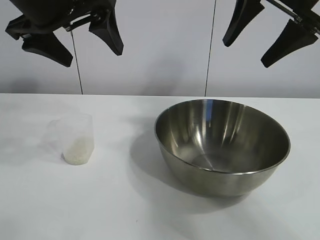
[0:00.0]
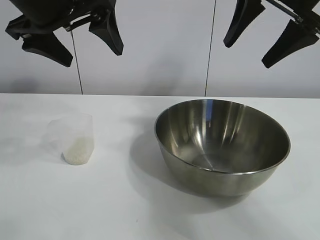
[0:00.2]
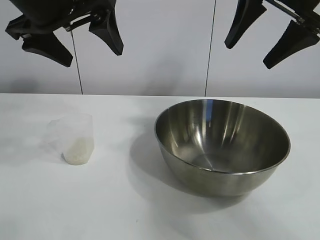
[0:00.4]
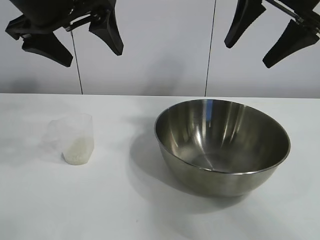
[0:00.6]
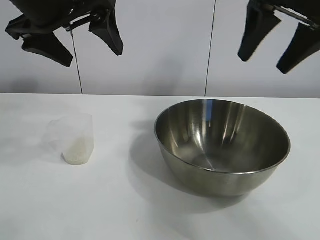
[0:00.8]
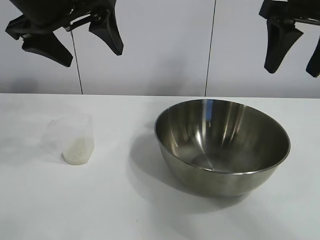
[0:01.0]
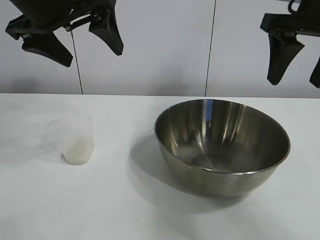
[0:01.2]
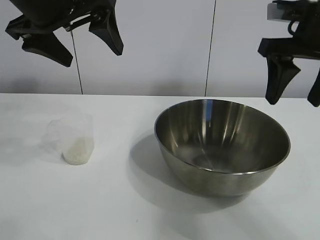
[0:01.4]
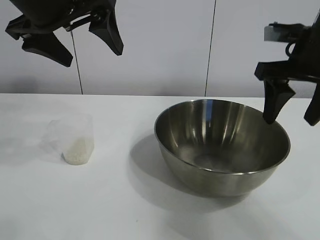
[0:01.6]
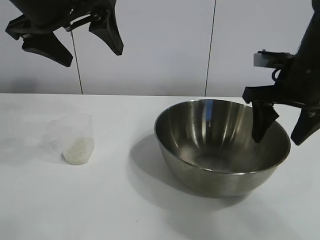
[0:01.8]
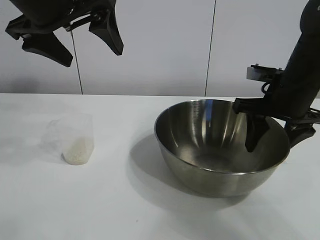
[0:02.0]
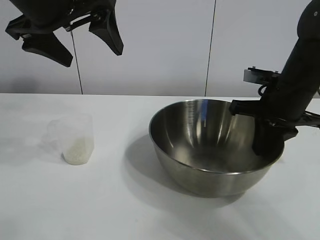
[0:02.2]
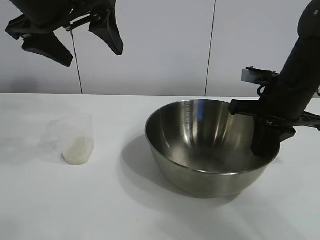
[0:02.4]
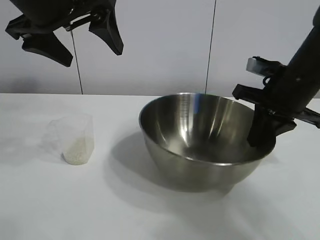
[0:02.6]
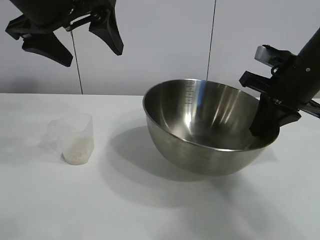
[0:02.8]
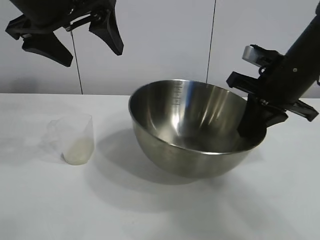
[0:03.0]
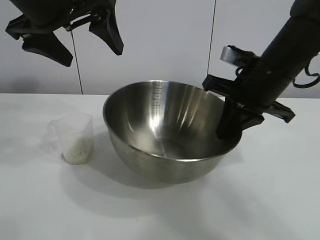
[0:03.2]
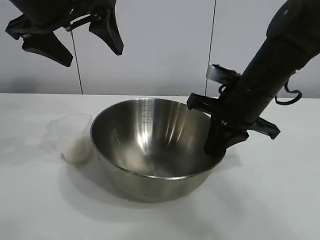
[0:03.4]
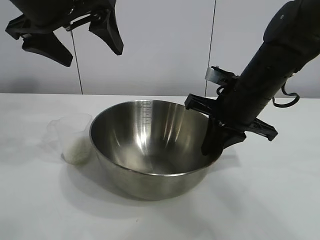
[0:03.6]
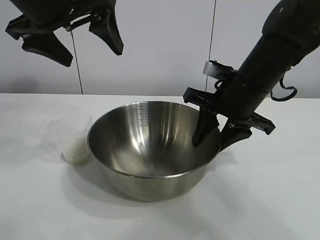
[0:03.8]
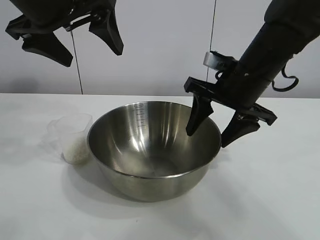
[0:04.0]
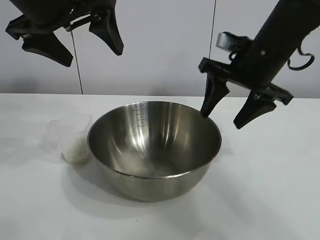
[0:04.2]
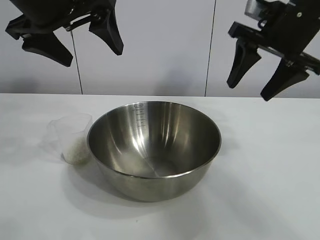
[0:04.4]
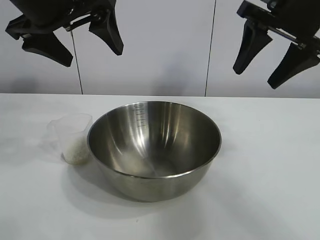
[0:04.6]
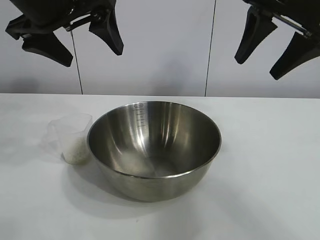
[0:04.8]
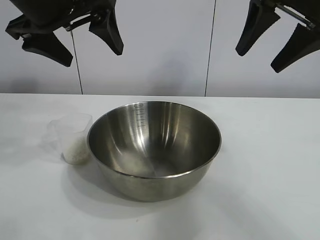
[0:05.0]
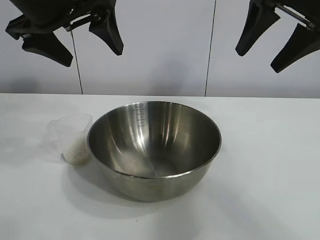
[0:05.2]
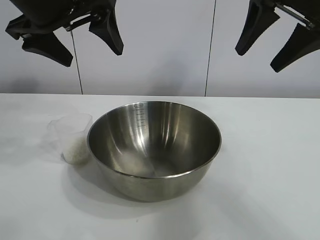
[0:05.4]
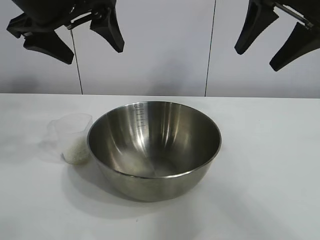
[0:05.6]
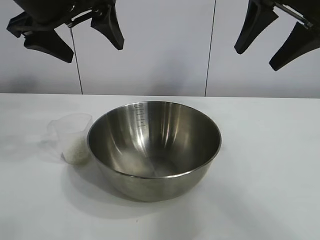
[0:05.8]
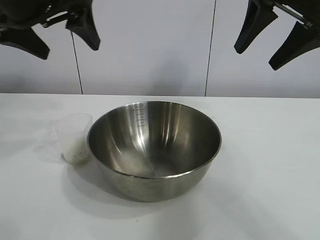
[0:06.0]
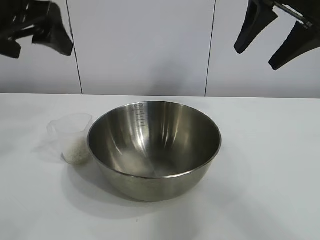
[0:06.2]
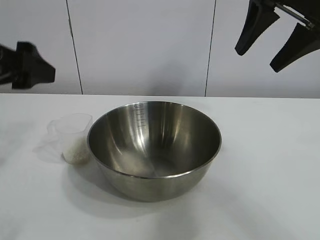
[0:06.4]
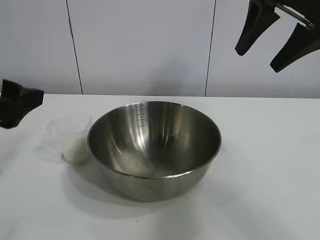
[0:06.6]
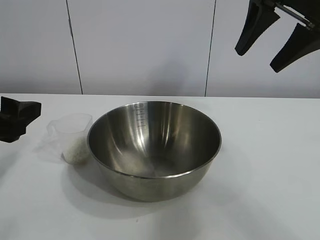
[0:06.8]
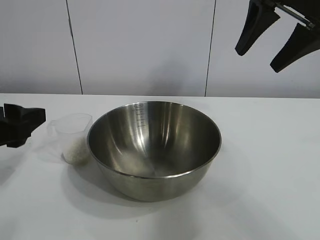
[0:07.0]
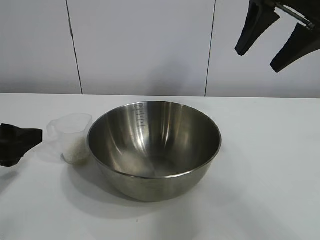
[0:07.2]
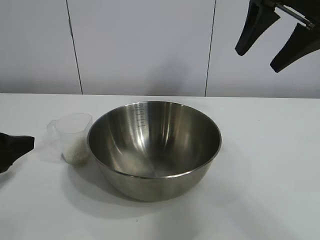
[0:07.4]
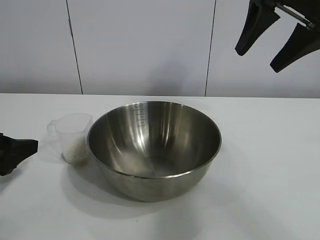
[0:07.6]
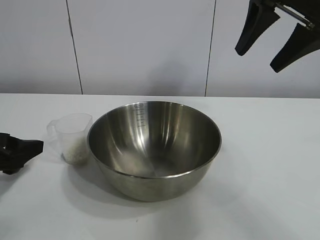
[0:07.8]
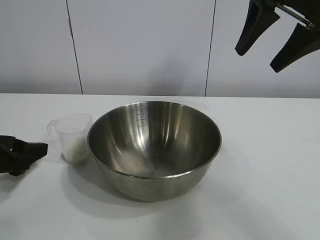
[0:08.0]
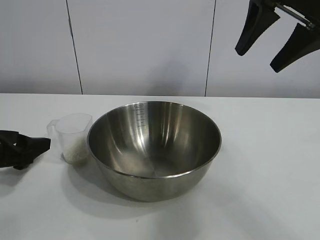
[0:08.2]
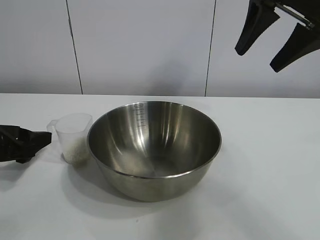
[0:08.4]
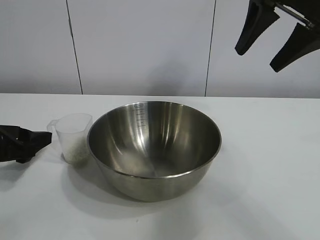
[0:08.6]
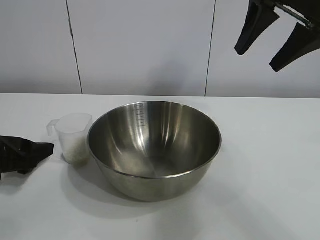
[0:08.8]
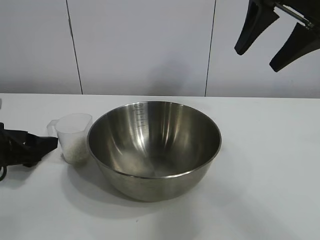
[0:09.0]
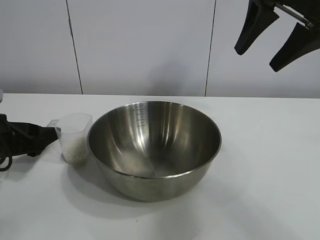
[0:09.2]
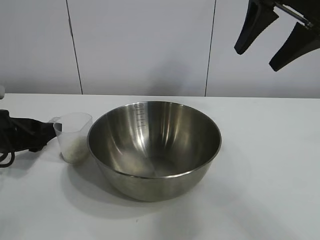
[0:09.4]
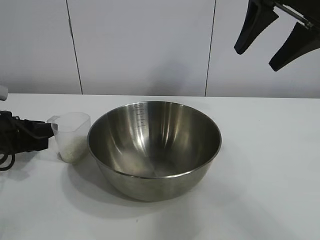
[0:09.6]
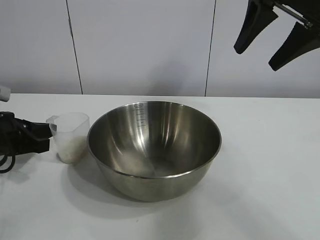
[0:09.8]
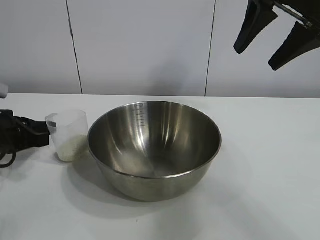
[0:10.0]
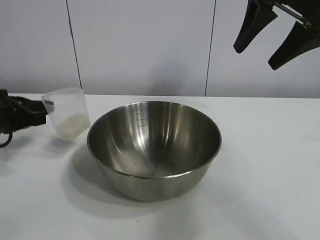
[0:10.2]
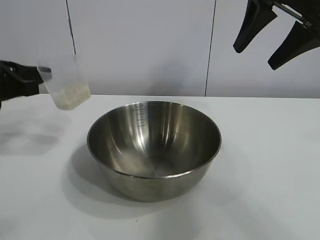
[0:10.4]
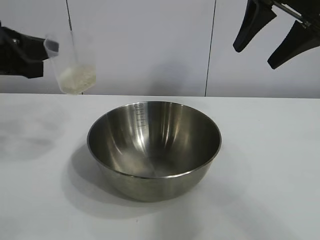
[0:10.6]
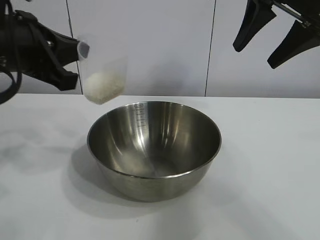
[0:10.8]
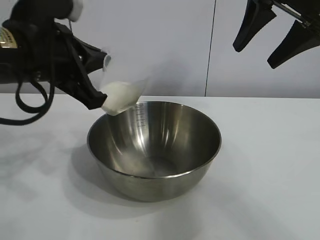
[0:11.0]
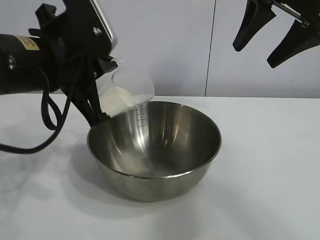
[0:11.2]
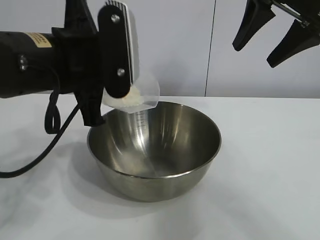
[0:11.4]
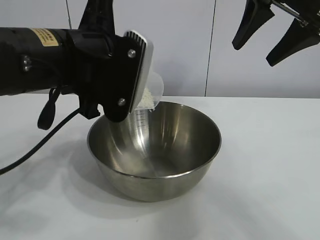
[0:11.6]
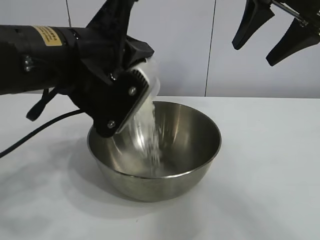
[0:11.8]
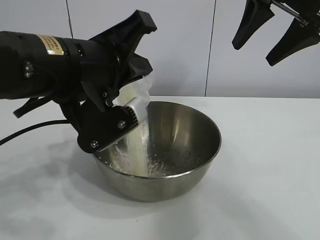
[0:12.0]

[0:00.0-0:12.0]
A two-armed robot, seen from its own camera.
Task of the whole recording: the right gripper grasp the rice container and place it in the center of the table, the left gripper grasp the rice scoop and pour the rice into the rice container.
Step, 0:00.8 to 0:03.8: Move the bowl in the center of view with right gripper.
Step, 0:04.0 to 0:09.8: Grasp the cup with rice in it with left gripper.

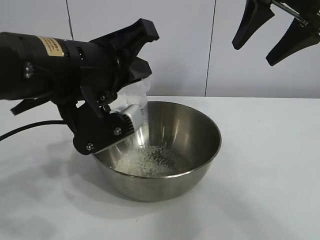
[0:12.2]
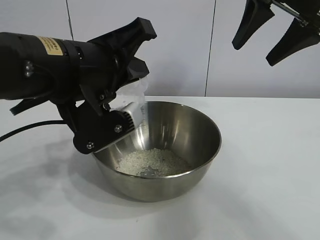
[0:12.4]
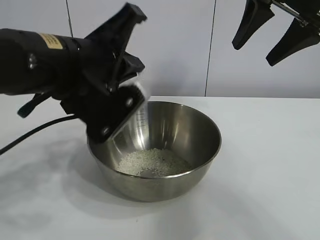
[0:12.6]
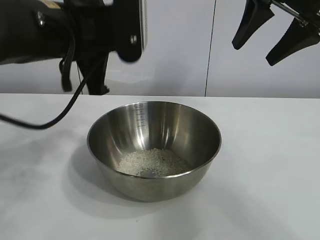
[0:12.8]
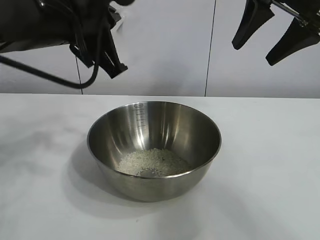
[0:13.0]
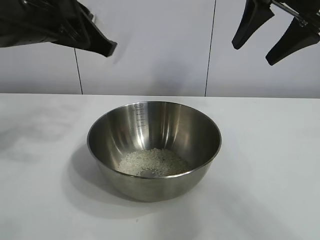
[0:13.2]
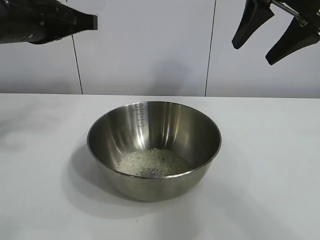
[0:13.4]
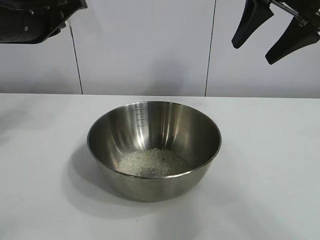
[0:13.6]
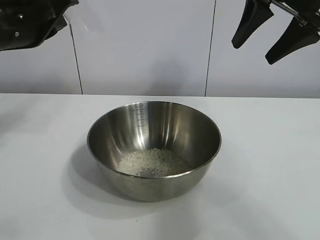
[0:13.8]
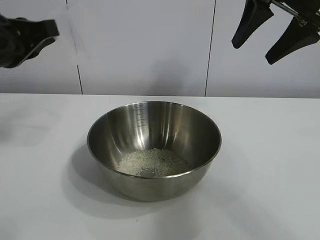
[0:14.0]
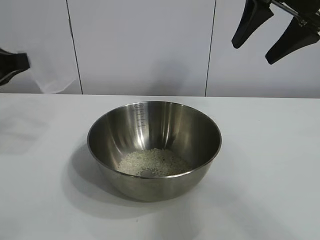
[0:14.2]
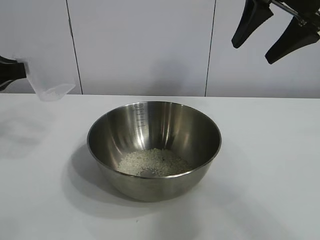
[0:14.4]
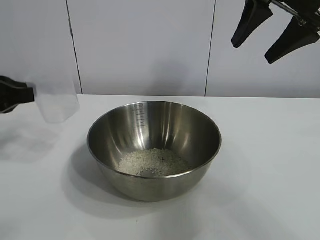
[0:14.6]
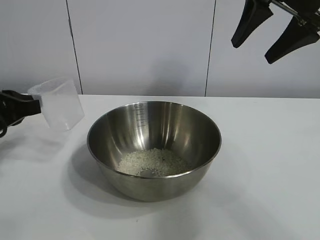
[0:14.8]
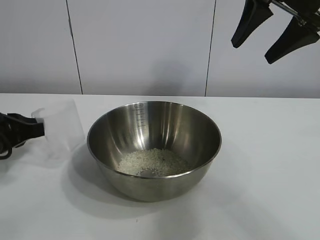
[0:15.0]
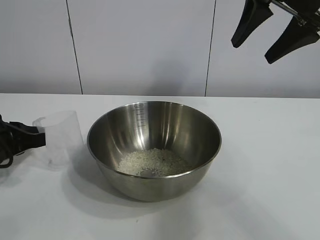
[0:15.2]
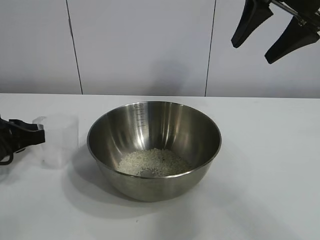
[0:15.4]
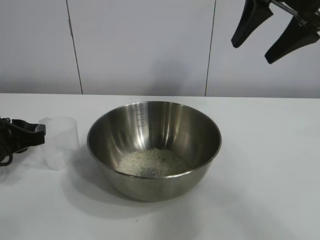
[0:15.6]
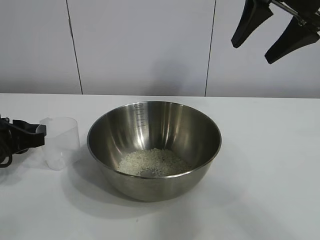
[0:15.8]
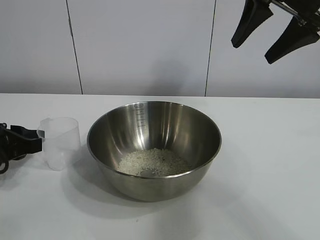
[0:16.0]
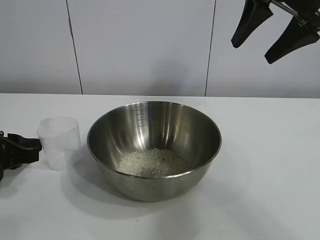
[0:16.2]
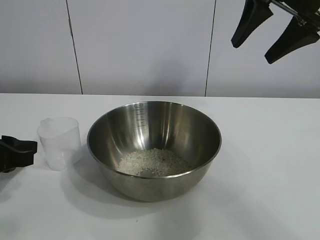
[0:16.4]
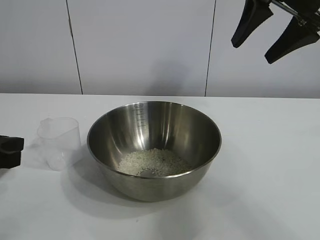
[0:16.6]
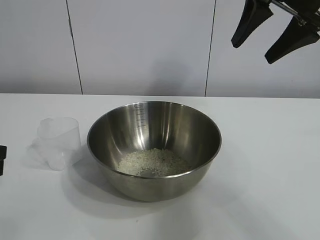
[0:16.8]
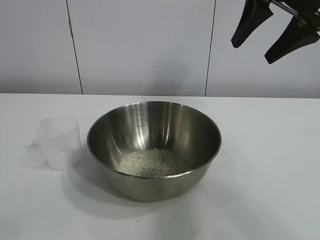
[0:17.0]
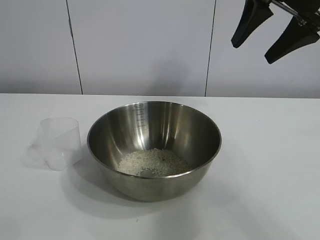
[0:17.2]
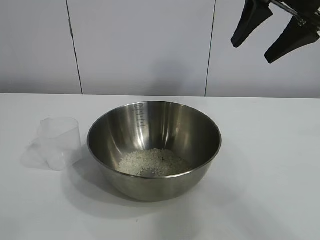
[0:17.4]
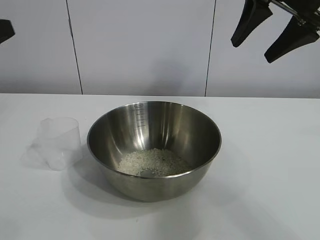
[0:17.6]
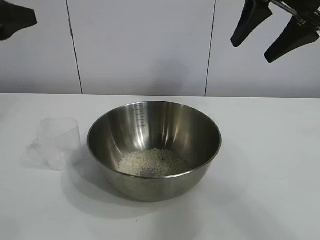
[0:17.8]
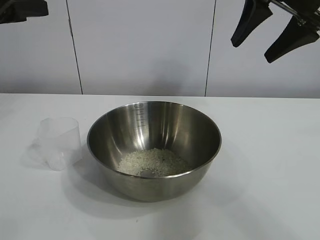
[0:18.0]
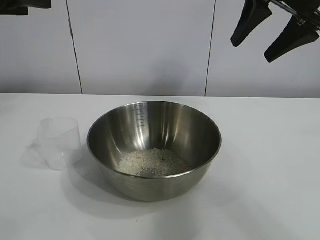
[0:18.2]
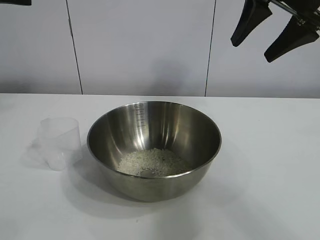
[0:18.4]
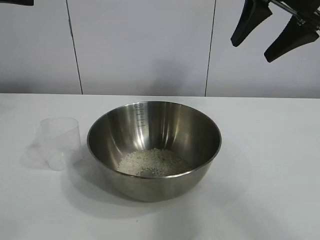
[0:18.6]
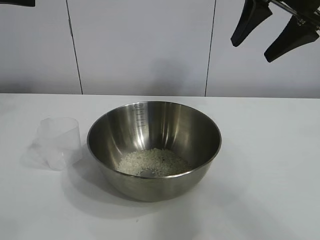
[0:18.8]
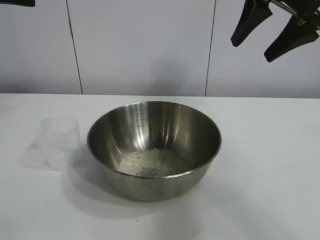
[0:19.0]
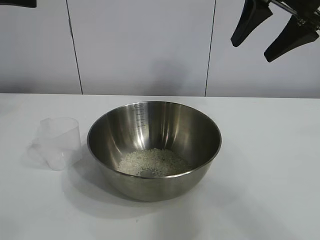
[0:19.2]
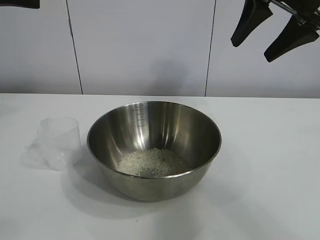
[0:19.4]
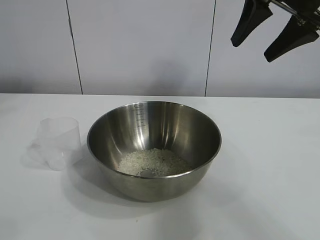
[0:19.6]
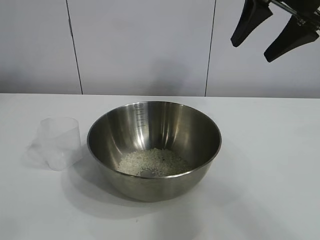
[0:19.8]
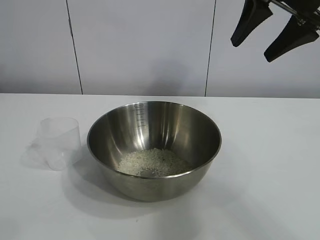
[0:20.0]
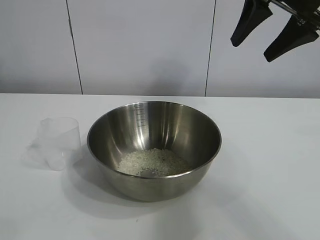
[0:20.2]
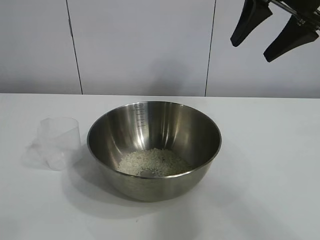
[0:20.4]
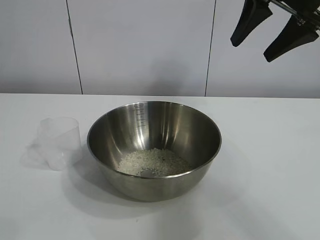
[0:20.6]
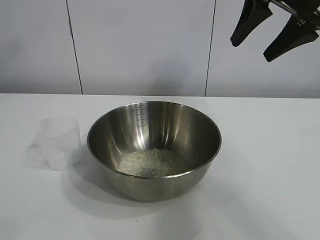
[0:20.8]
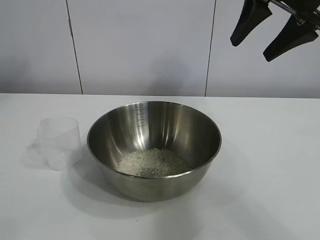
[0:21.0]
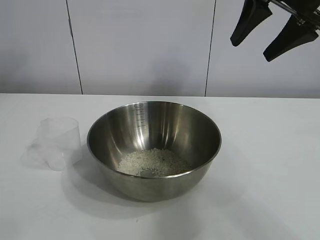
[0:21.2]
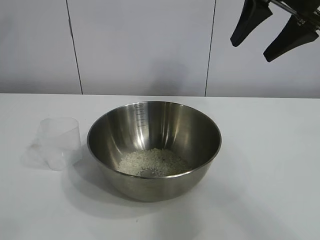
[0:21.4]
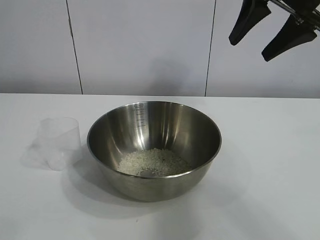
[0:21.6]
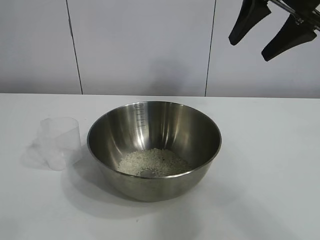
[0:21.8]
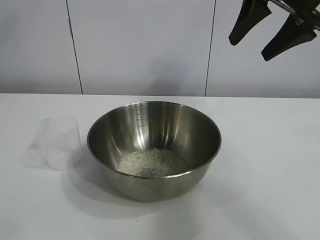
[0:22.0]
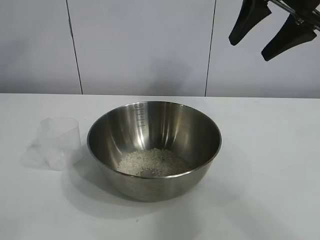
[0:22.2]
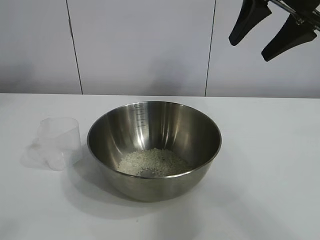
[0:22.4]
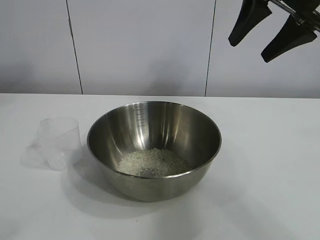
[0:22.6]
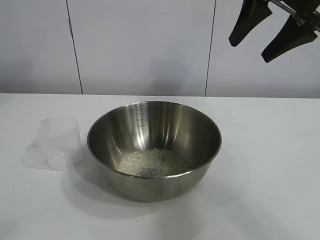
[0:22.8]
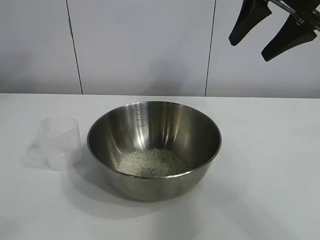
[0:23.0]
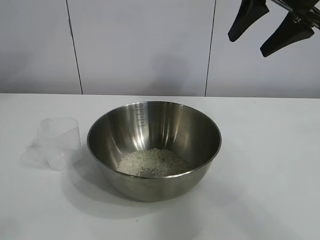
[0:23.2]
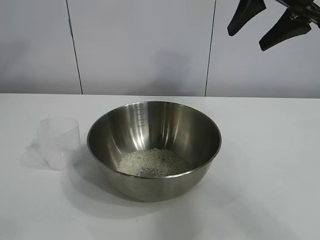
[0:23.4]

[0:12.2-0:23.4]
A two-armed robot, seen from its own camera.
Task of the whole recording: the right gripper grasp the rice container and place it in the center of the table, the left gripper grasp the rice scoop and pour the rice into the rice container.
Step, 0:12.6 to 0:15.8: Place the cup on the table with the left gripper.
